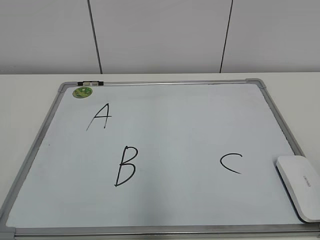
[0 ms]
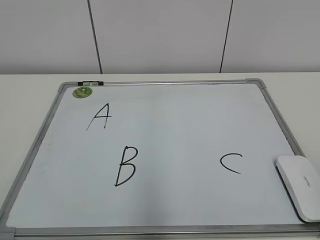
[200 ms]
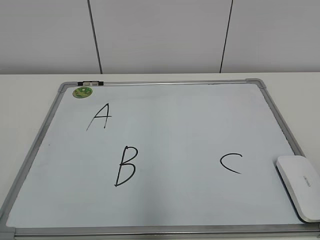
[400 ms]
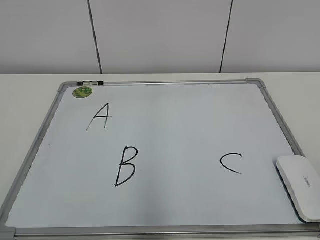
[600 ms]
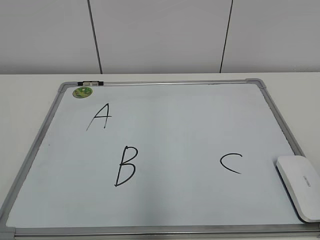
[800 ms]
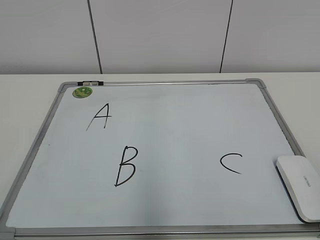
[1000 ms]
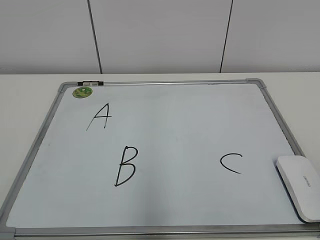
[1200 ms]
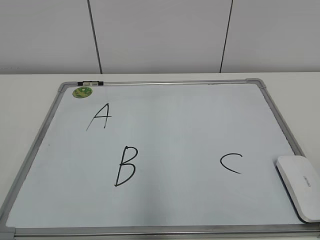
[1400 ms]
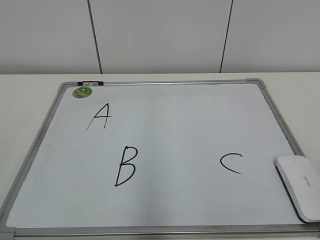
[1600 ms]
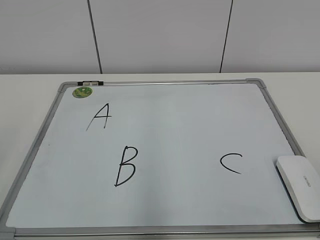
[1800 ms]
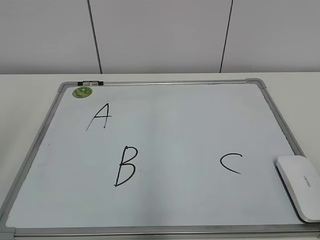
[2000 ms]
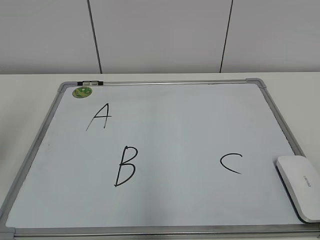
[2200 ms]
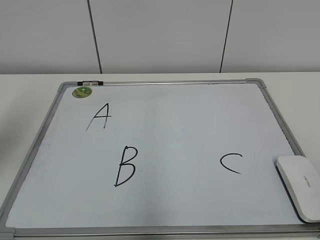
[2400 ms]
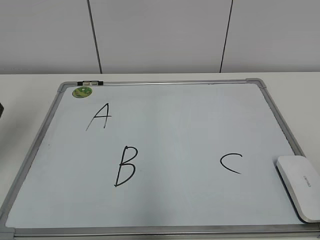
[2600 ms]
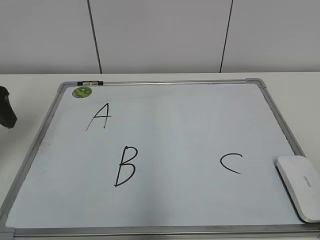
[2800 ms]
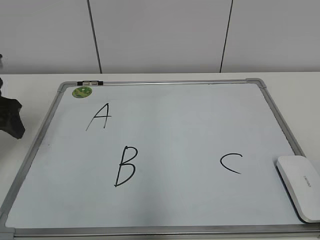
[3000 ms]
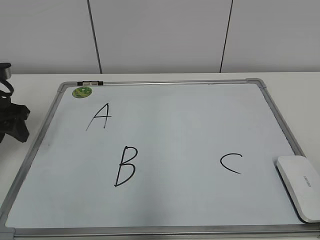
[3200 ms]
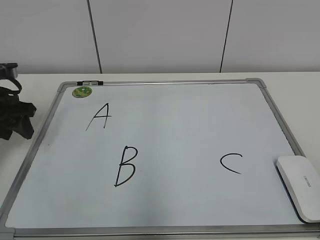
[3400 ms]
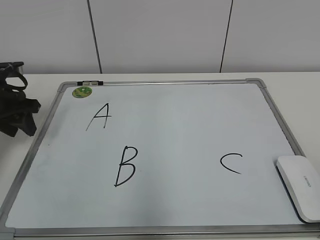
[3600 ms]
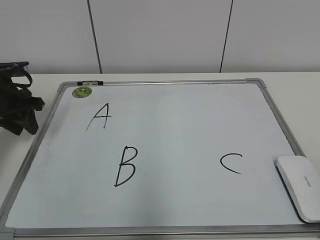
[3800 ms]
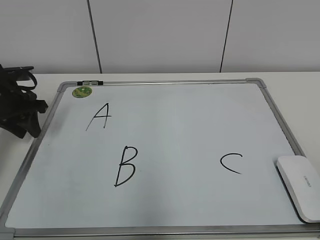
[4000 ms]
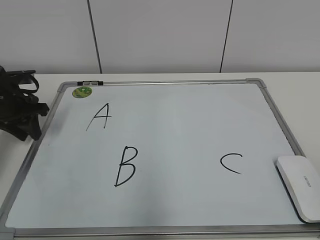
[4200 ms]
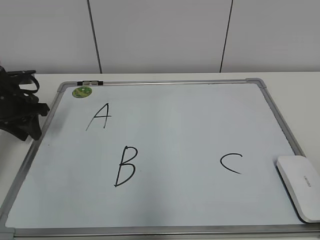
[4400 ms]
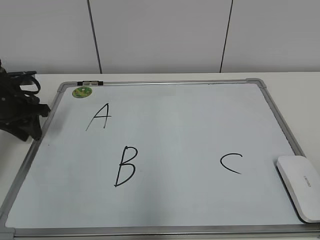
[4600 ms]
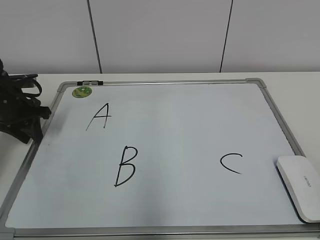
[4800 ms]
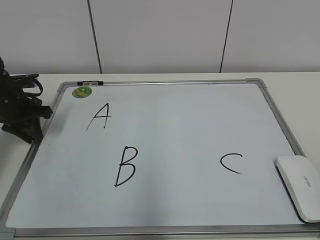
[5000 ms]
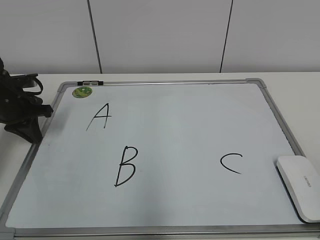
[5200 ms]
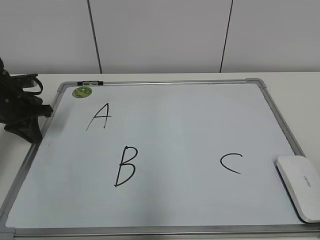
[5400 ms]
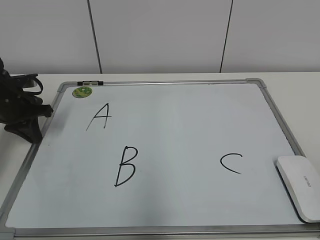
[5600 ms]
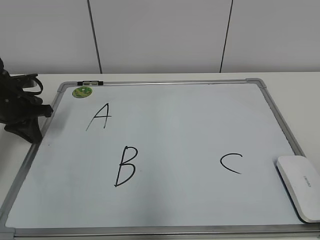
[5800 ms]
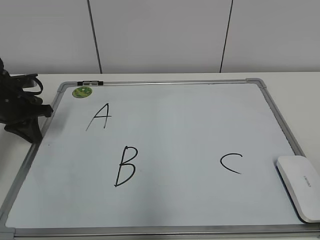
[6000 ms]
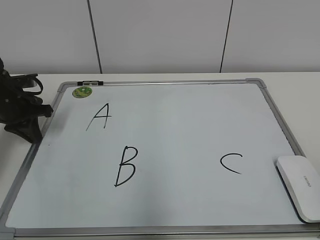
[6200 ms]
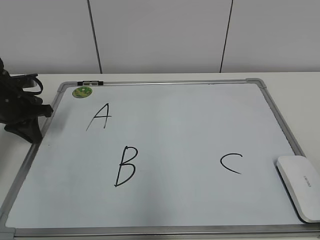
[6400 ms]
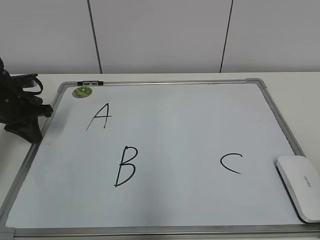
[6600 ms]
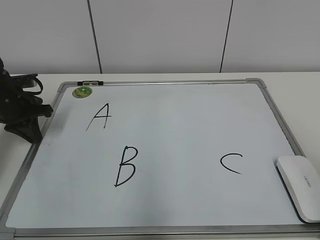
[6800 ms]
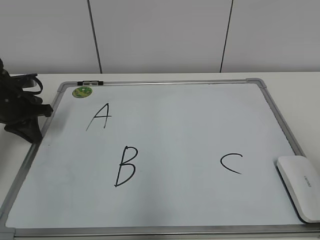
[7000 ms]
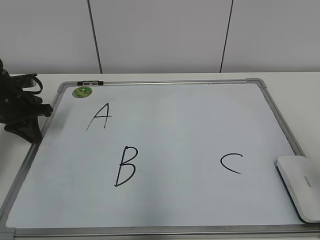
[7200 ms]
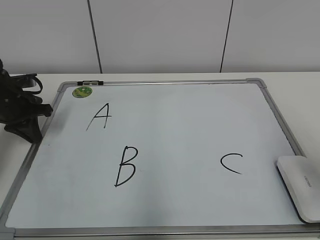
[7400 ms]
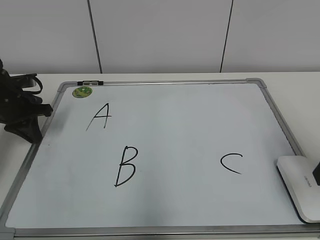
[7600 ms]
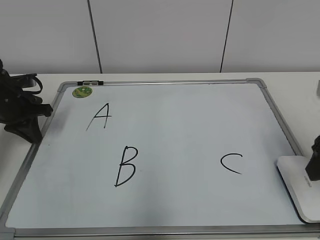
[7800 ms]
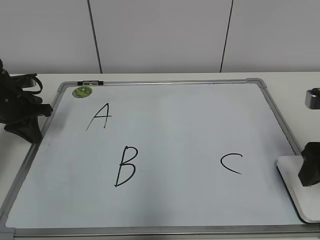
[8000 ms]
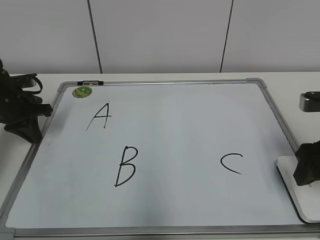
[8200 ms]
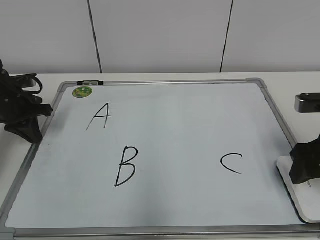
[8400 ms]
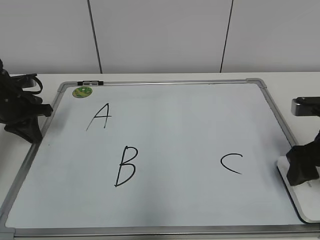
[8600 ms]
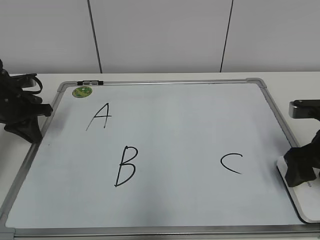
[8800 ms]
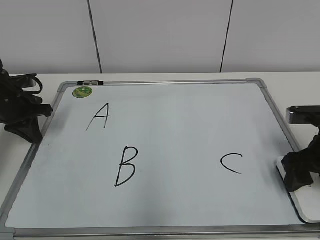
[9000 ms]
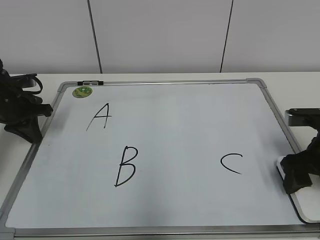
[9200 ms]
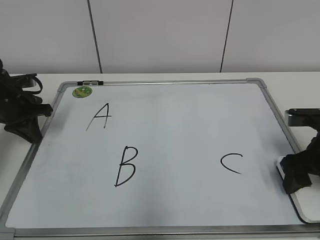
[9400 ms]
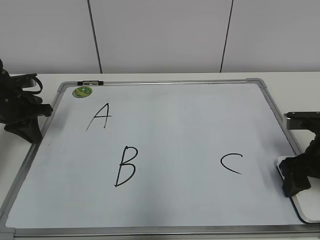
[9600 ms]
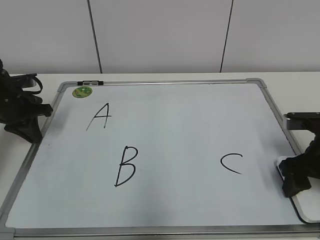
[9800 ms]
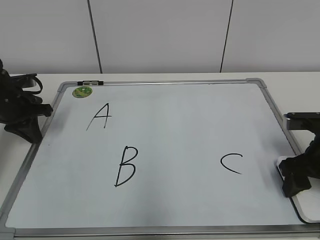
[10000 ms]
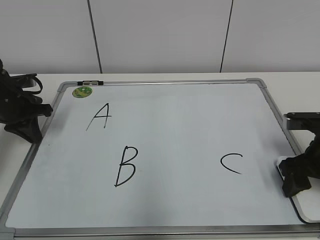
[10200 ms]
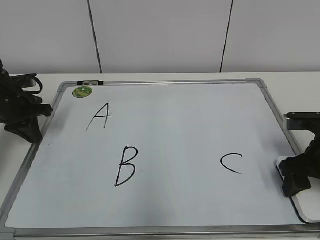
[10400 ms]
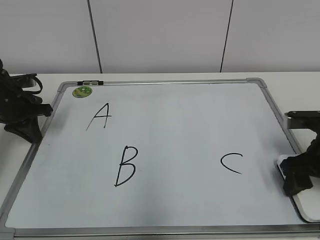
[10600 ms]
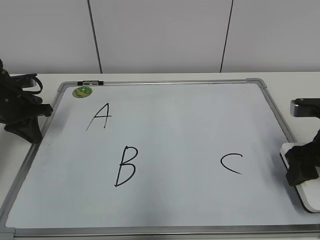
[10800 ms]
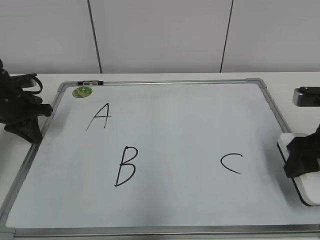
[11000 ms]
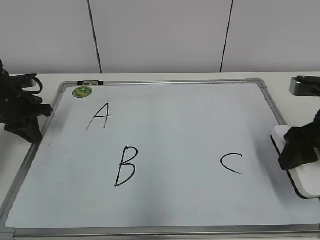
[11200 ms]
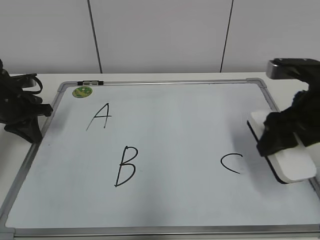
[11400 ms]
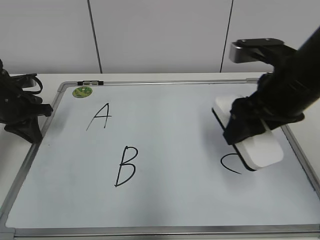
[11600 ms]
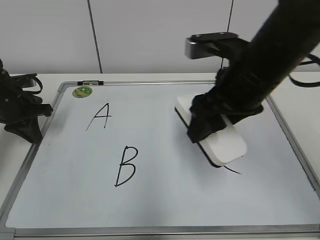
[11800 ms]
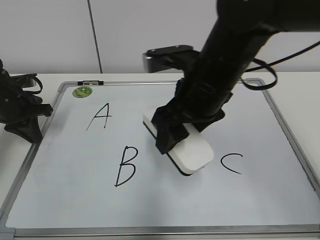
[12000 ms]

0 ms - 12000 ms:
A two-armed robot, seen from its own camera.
Task of the whole recording: pick up the eraser on the blackboard and erase the letter "B".
Step, 0 ms - 5000 ms: Hold the drawing board steady with your left hand.
Step, 5200 ms - 10400 ms: Grab the eraser with your right hand.
1600 ms - 3000 ms: The left gripper heads forward, covering roughly 30 cm.
3000 ms - 4400 ms: The left gripper heads forward and downward, covering some 10 cm, and closes up.
4400 ms - 6000 ms: The left gripper closes.
6000 ms - 7600 ms: The right gripper heads forward, covering about 20 cm.
7600 ms - 9000 ms: The right gripper moves downward and forward, some 10 cm.
9000 ms - 10400 ms: The grippers make only small movements.
10400 ms - 12000 ms: The right gripper travels to the left and upward by some 25 cm.

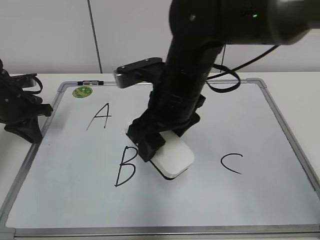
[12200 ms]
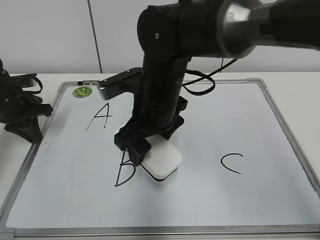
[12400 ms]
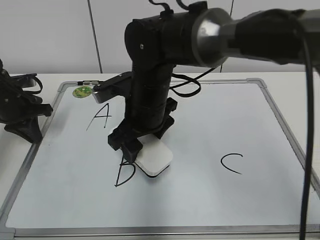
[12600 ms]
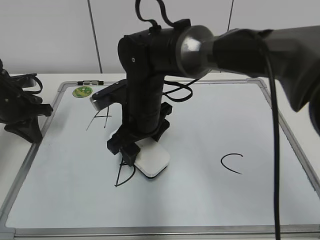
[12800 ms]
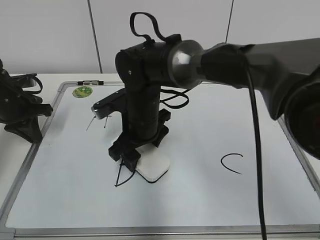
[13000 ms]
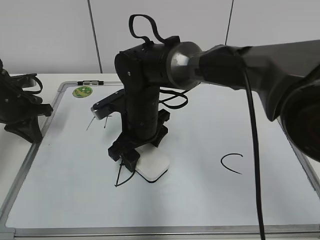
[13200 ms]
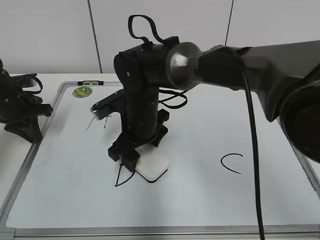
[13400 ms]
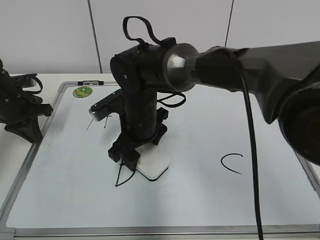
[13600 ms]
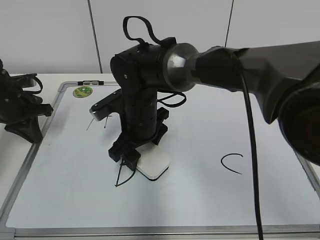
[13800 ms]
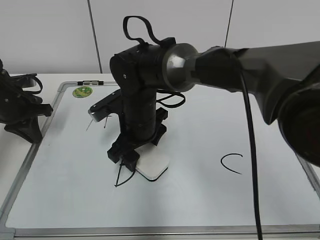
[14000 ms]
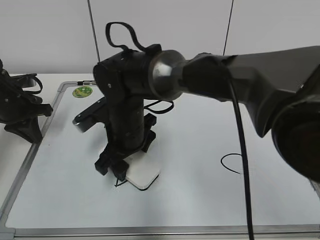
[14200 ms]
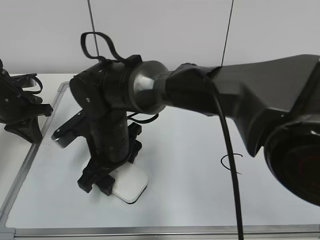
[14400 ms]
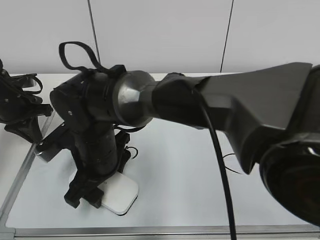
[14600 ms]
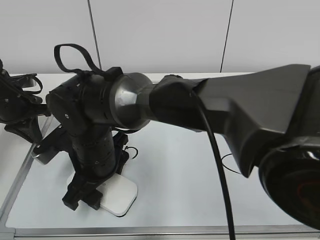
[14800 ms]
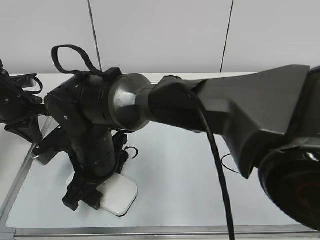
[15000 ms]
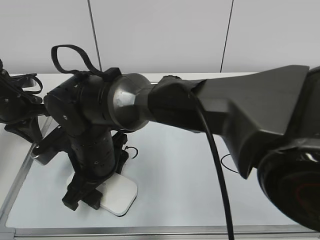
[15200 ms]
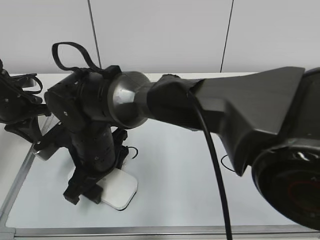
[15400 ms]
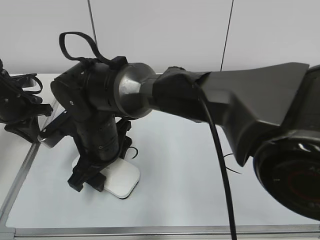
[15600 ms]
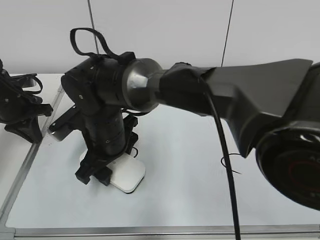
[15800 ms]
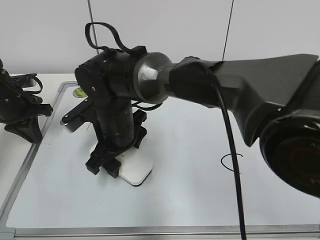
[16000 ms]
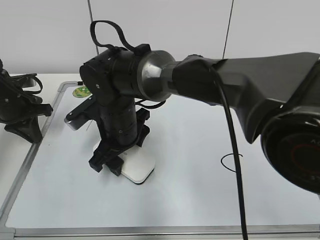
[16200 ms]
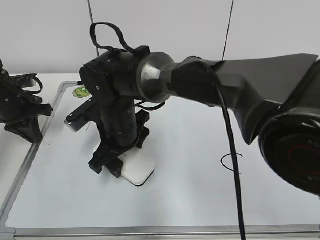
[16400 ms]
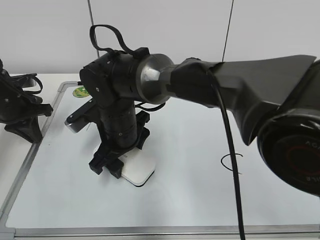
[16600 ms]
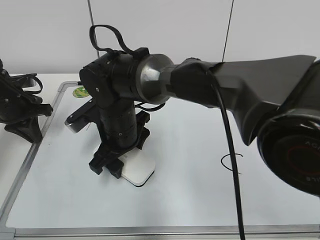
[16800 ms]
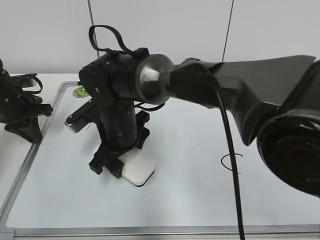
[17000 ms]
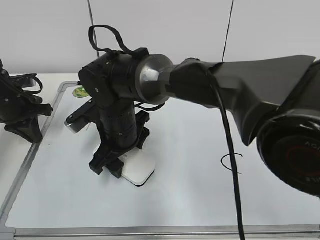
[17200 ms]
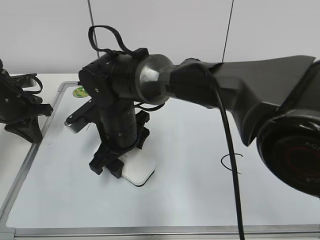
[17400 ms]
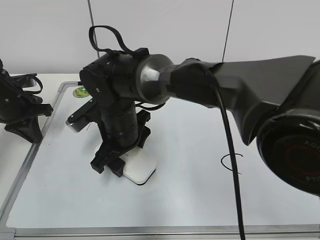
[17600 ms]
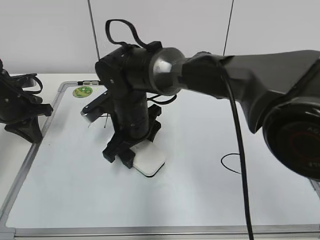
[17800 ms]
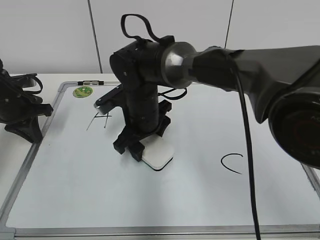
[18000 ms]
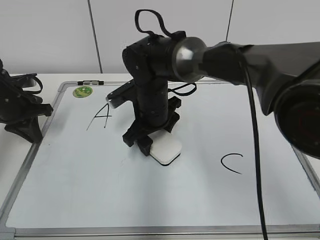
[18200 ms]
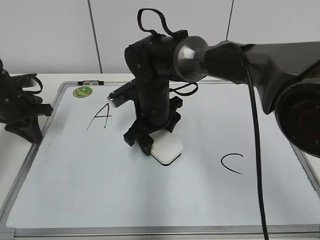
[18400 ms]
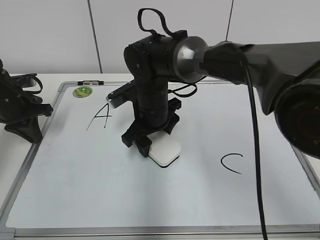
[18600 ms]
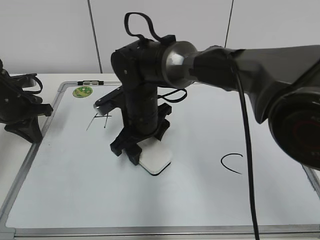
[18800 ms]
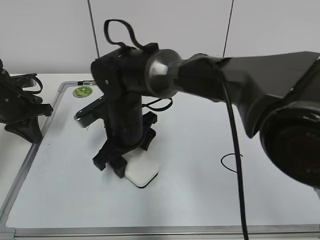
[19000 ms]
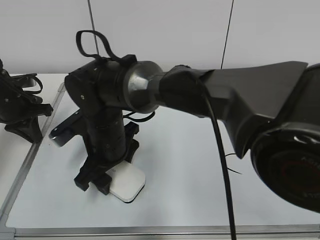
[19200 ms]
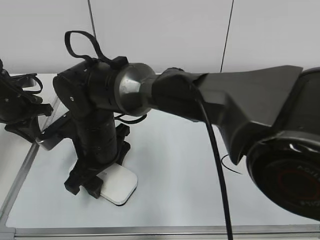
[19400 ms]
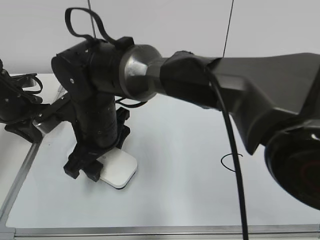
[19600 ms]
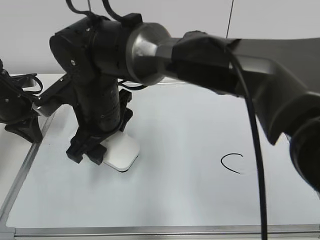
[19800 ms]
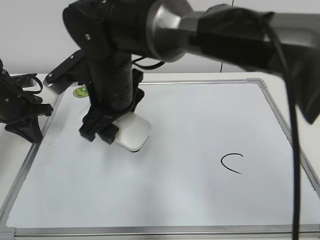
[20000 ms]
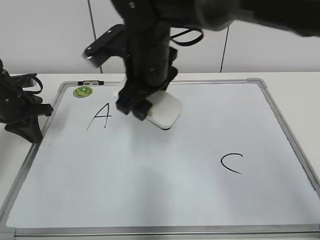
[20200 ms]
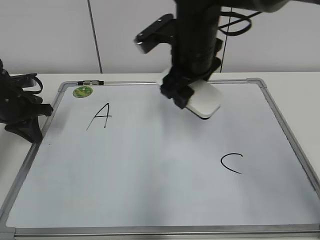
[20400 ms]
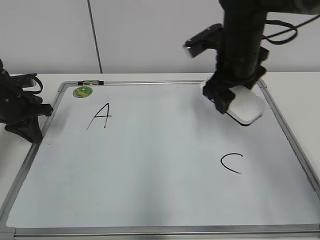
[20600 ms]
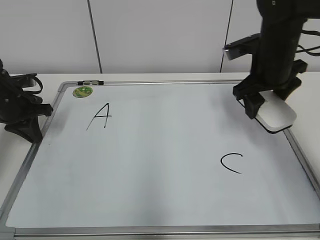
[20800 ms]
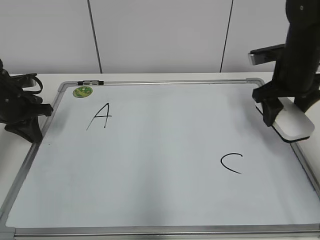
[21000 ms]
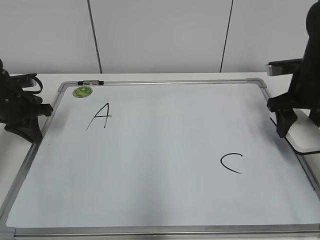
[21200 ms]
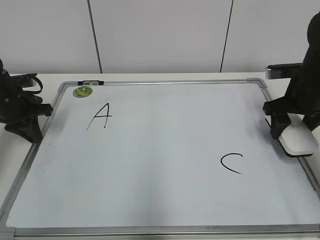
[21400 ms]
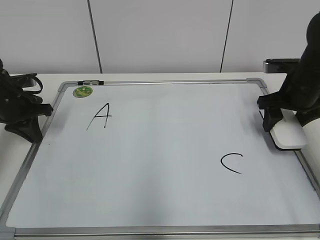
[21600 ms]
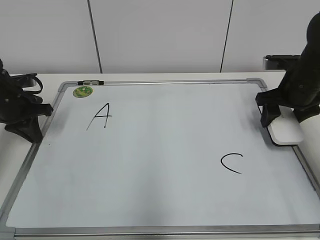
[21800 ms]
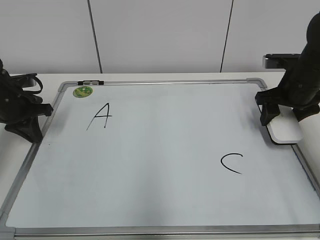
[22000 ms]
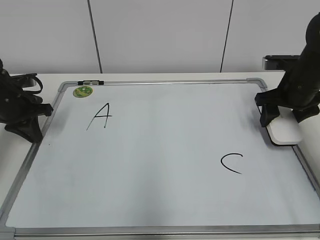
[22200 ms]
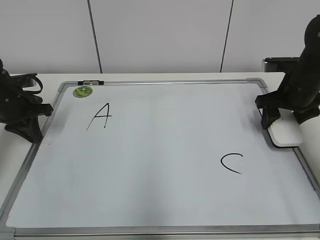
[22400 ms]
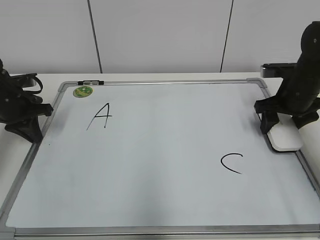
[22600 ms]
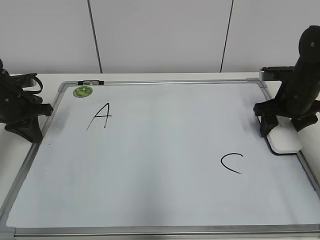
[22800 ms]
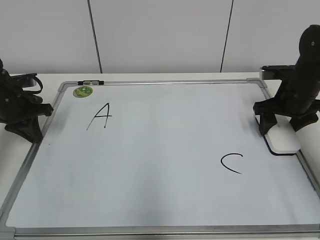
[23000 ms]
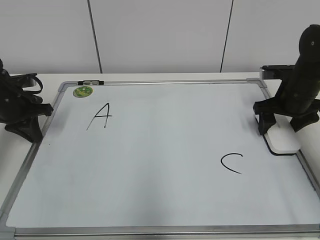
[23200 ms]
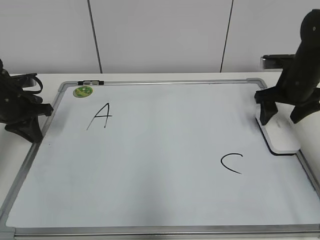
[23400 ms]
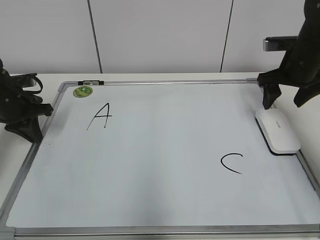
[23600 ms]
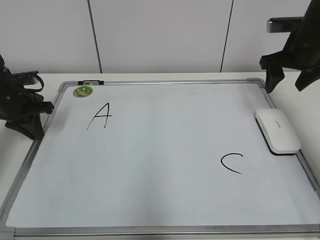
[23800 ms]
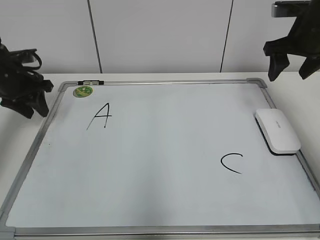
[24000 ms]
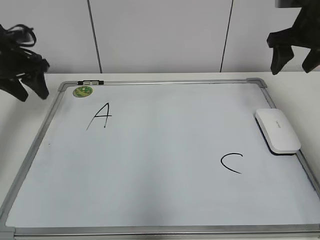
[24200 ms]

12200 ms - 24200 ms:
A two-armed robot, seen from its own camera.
Task of the whole recording: pick up the eraser on the blackboard and erase the letter "B".
Step, 12200 ms - 19000 ms: Erase the letter B with your right hand.
Step, 19200 ms - 23000 ms: Put down the eraser with your right hand.
12200 ms - 13800 ms: The right gripper is displaced downward, to the left and forward by roughly 10 cm.
13800 ms - 15200 ms: The right gripper moves backward and to the left, approximately 10 cm.
15200 ms - 16600 ms: The right gripper heads forward, covering roughly 5 cm.
16600 ms - 18200 ms: The right gripper is displaced to the right and forward by roughly 10 cm.
18200 ms - 19800 ms: The right gripper goes about 10 cm to the left, backward and upward.
19800 ms - 21200 ms: The right gripper moves to the right, roughly 35 cm.
21200 ms - 22600 ms: There are only small adjustments of the grippers.
22600 ms - 24200 ms: The right gripper travels upward by approximately 15 cm, while the left gripper shifts about 10 cm upward, and opens up.
